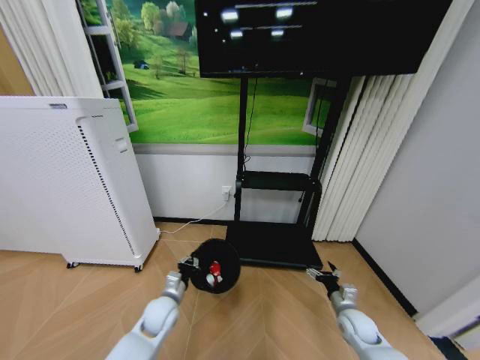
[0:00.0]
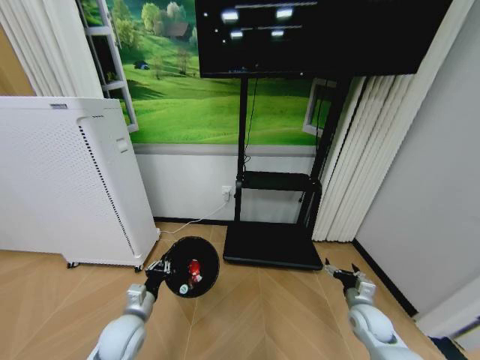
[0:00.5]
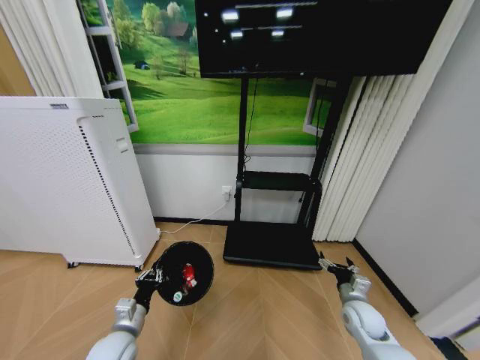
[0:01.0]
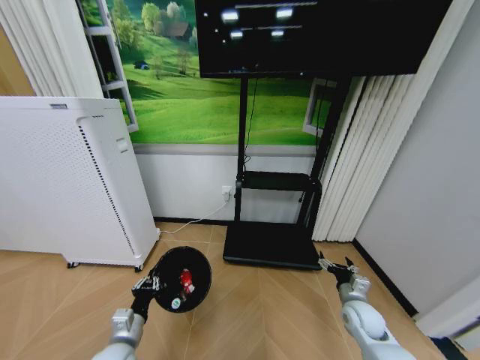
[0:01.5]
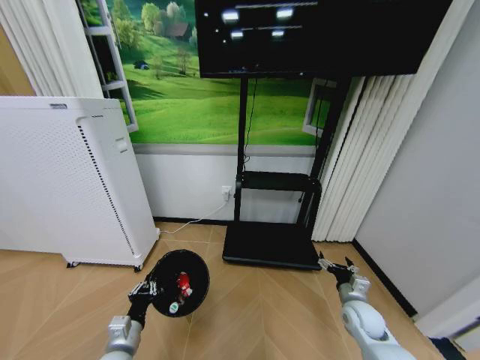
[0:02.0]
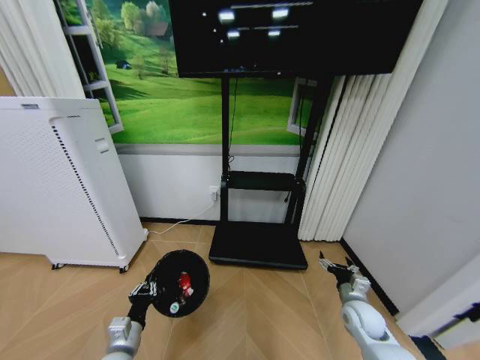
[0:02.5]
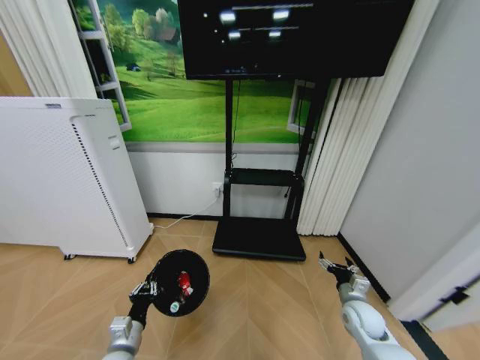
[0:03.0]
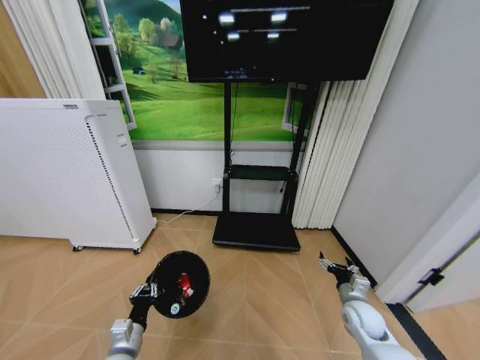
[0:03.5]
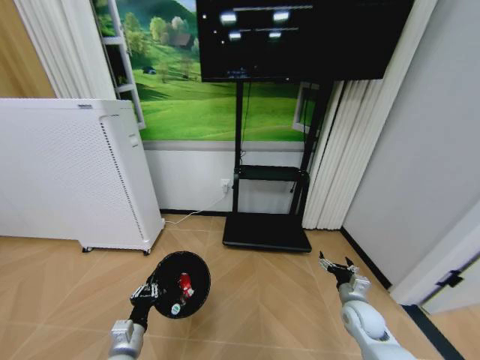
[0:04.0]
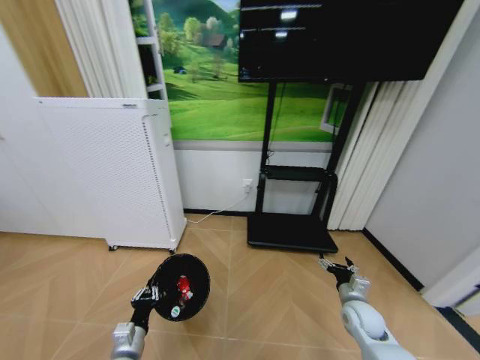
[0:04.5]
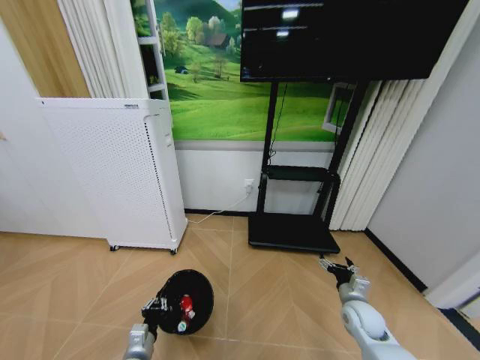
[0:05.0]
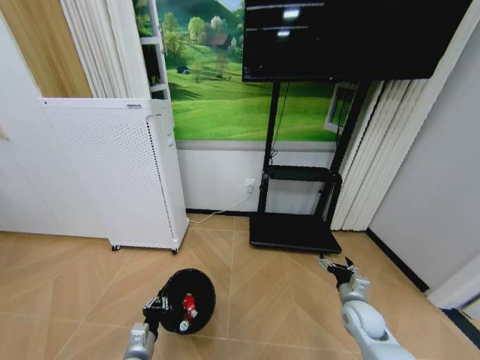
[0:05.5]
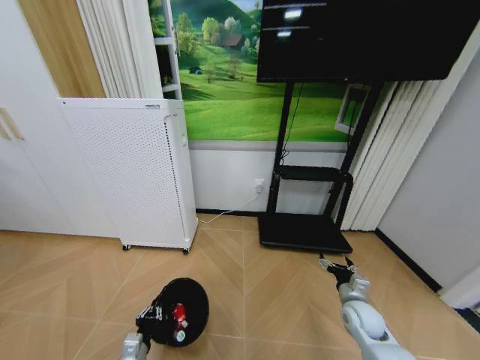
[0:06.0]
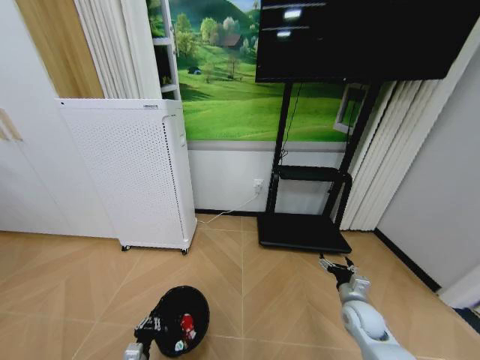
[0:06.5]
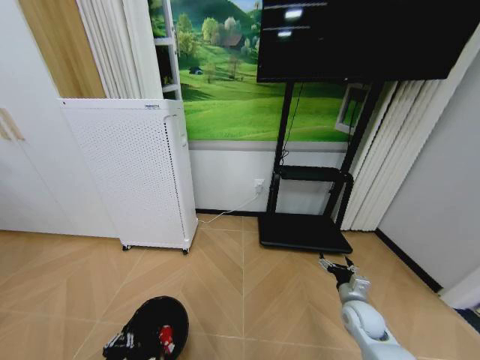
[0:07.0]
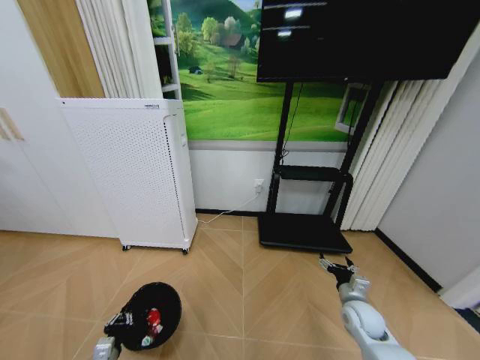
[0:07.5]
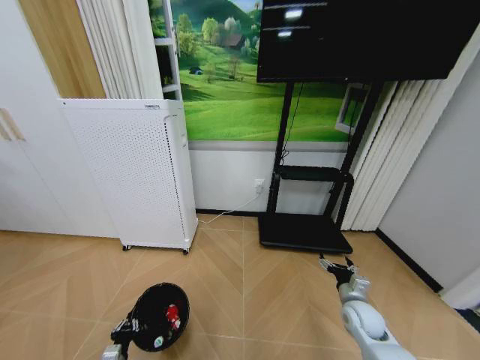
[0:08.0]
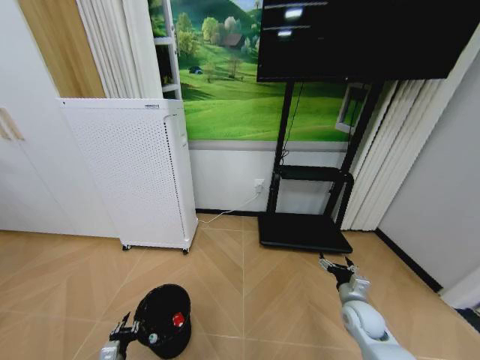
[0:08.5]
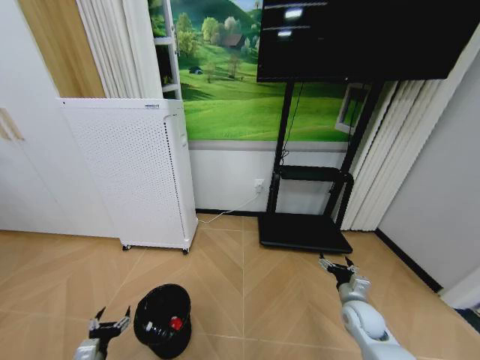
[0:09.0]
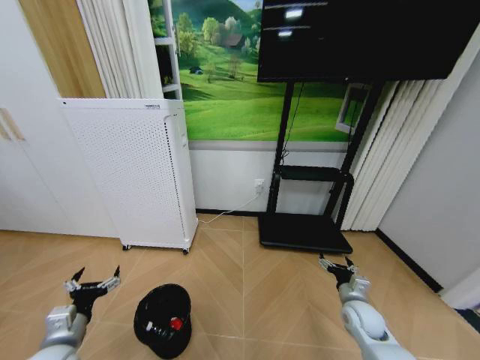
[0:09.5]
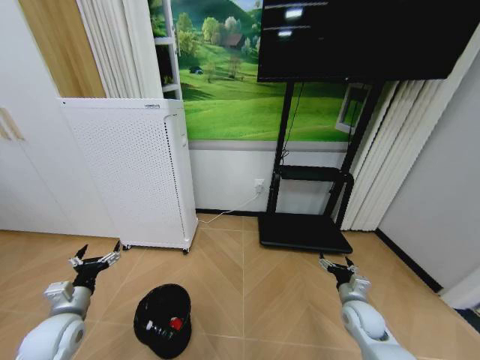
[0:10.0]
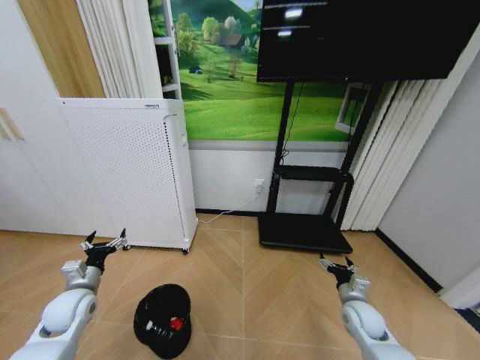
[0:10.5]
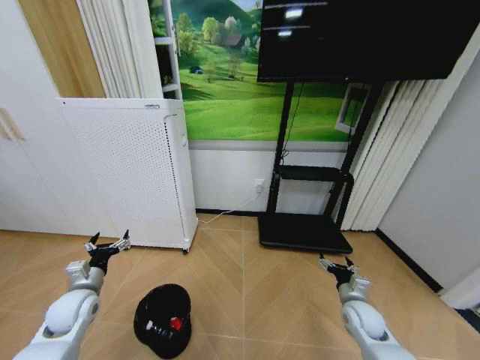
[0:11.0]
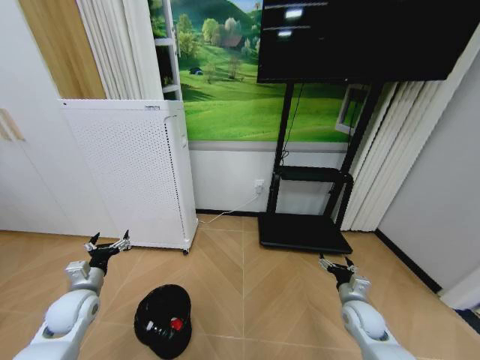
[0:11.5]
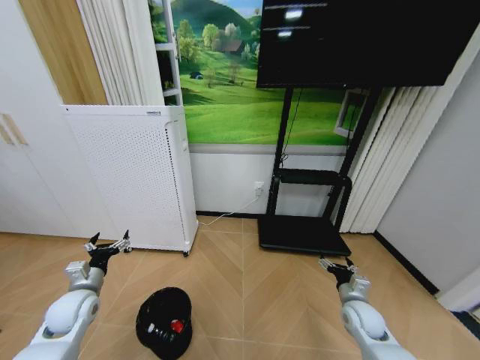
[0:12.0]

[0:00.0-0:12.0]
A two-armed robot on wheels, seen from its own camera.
Task of the whole recording: Pick up the trash bin and place the garbage on the floor into it.
0:00.0 to 0:02.0: The right gripper goes approximately 5 cm upward, while the left gripper is displaced backward and to the left by about 15 cm.
0:04.0 to 0:06.0: The left gripper heads downward, covering approximately 5 cm.
0:06.0 to 0:08.0: The left gripper moves to the left and downward, approximately 10 cm.
0:08.0 to 0:10.0: The left gripper shifts about 20 cm upward and forward, and opens up.
0:10.0 to 0:12.0: The left gripper is displaced forward by about 5 cm.

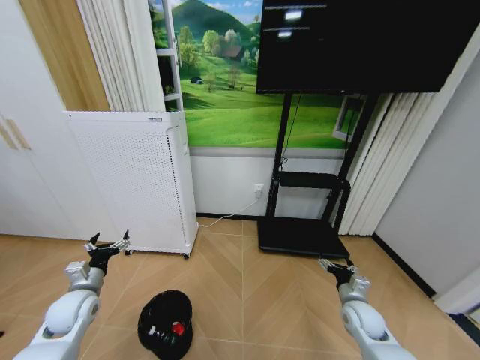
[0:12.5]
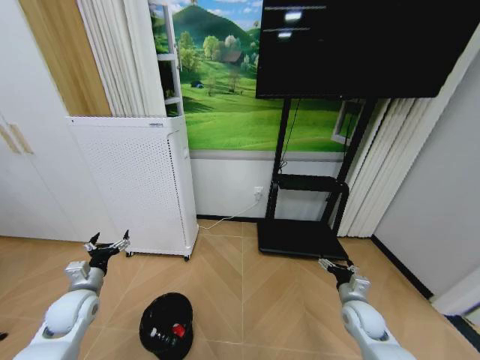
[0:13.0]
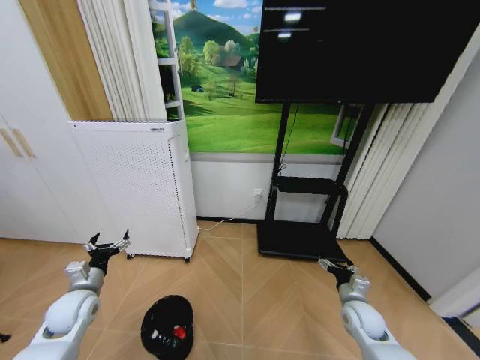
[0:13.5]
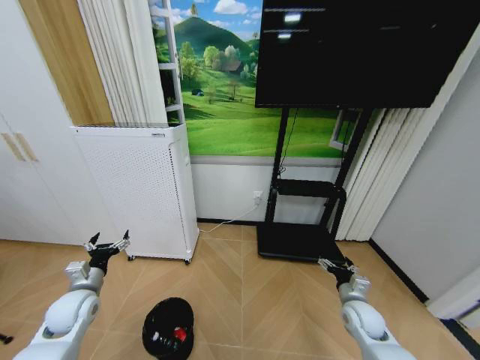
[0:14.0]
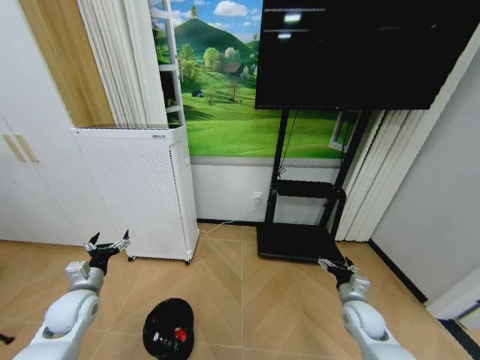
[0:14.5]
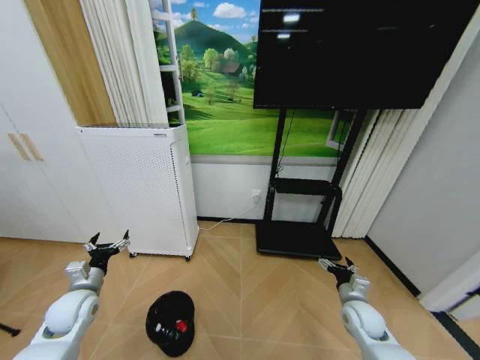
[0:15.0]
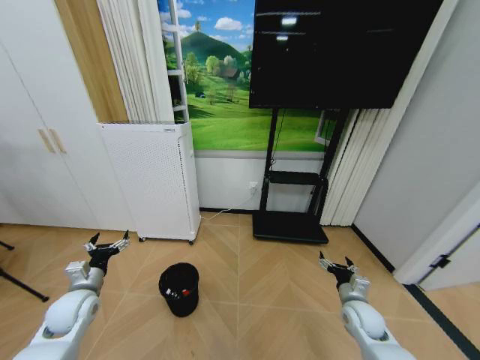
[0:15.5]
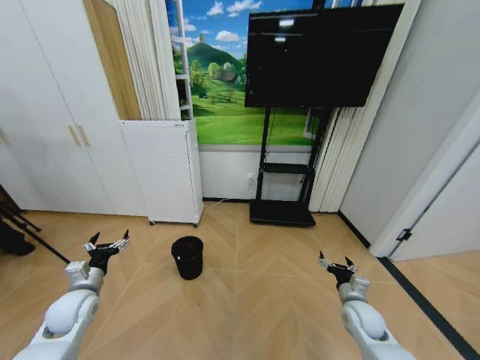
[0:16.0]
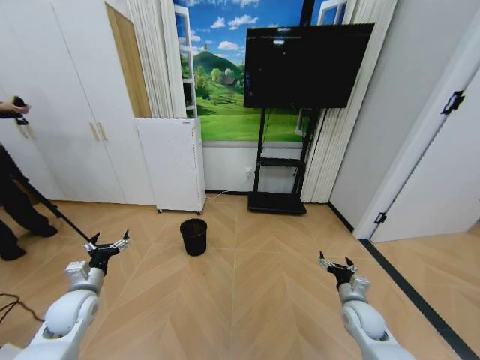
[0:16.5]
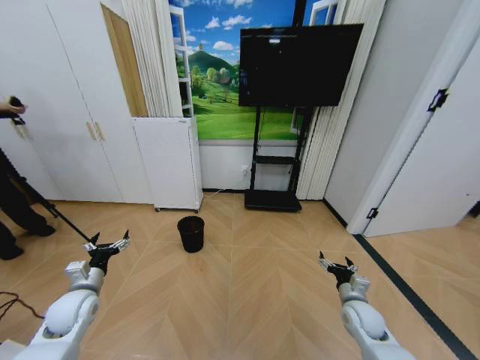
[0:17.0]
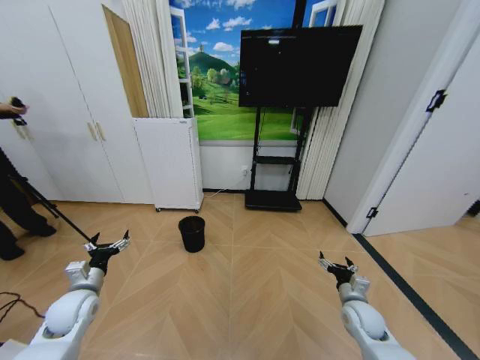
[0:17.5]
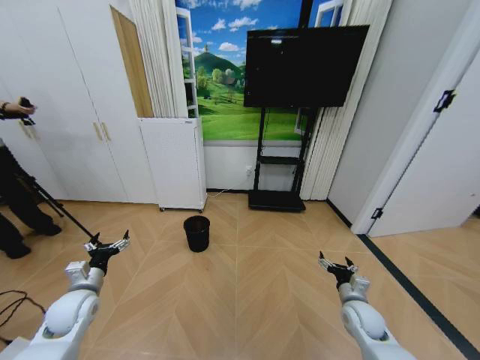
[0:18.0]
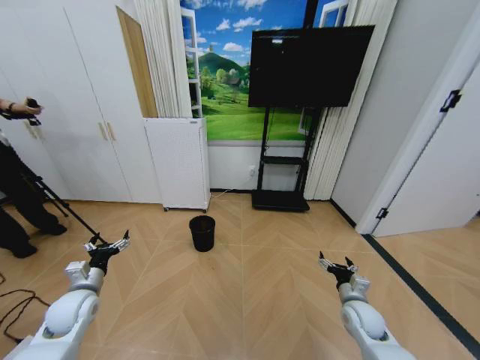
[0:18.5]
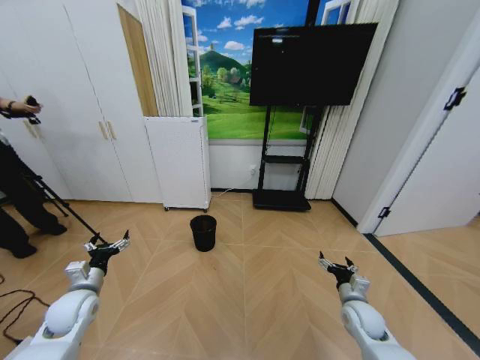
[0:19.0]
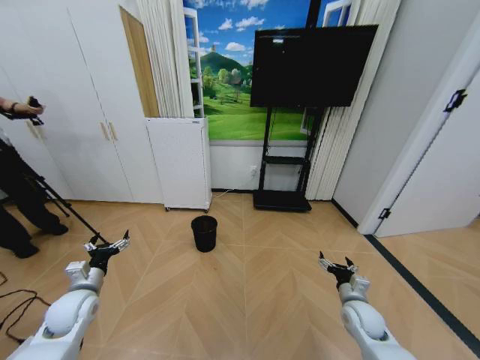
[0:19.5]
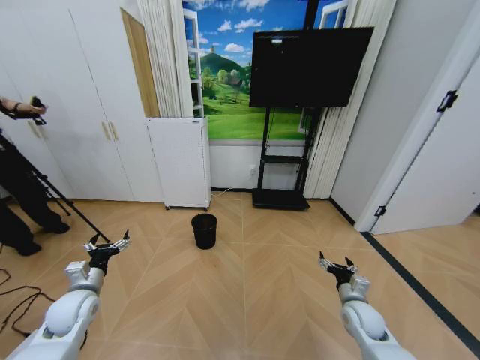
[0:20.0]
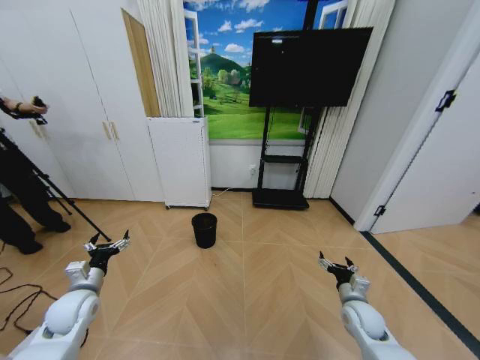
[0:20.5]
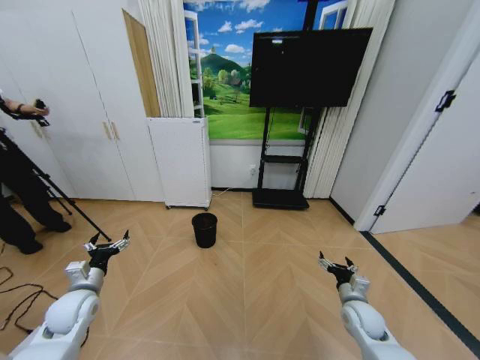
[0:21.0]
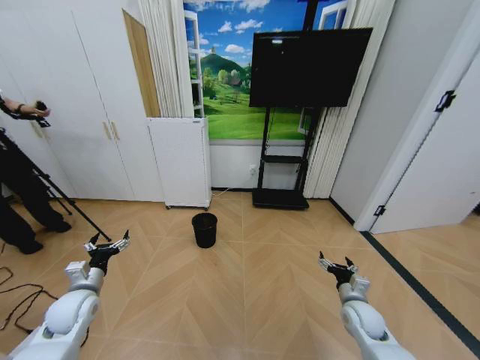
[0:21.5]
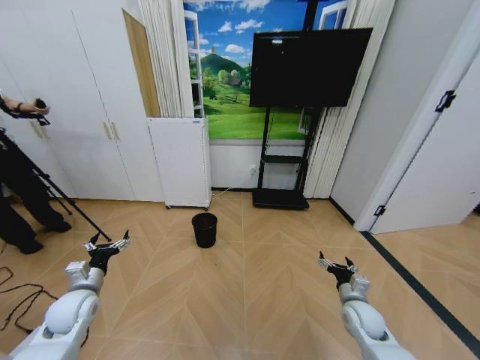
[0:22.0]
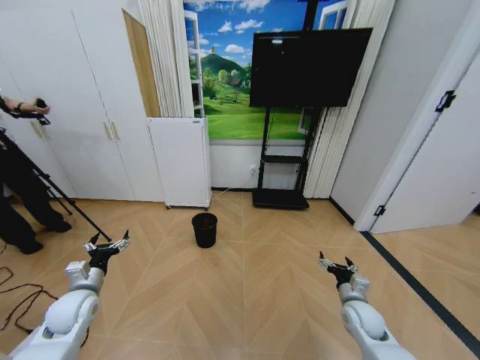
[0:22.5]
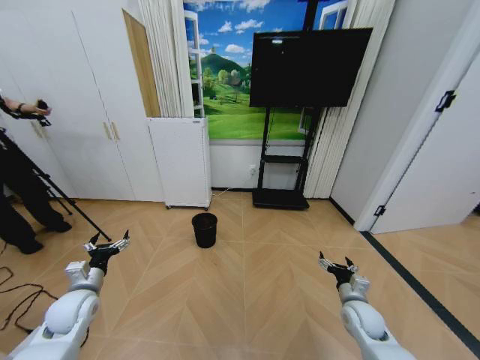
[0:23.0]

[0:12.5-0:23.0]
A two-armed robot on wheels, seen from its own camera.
Task of the whole recording: Pick up the trash bin and place the garbage on the floor into it.
0:12.5 to 0:14.5: The two grippers keep their place.
0:16.5 to 0:23.0: Both grippers stay put.

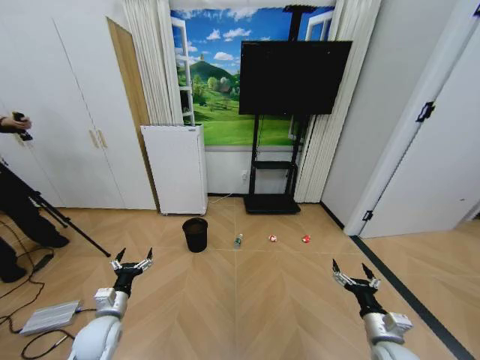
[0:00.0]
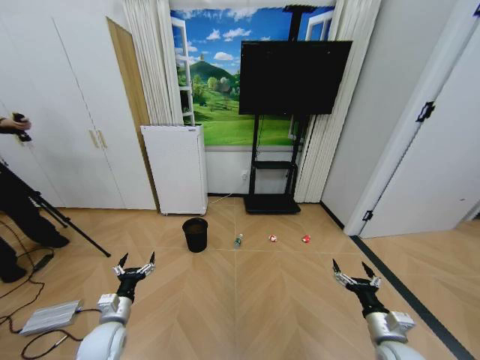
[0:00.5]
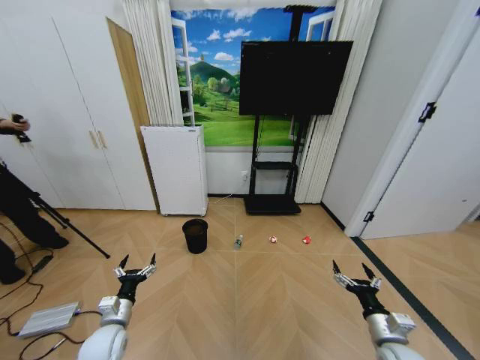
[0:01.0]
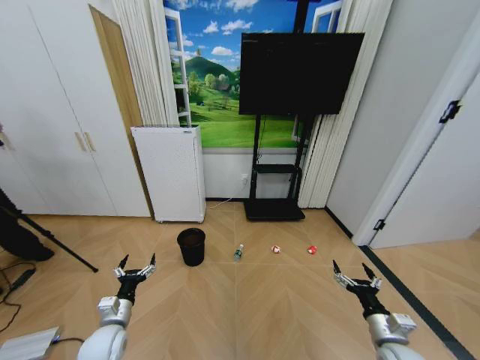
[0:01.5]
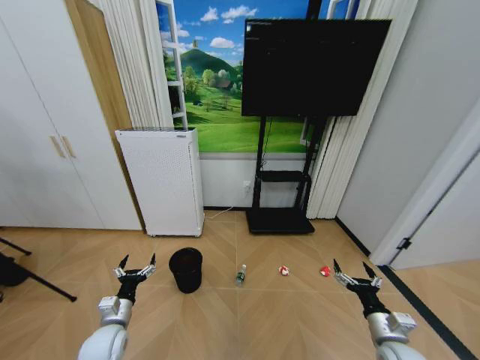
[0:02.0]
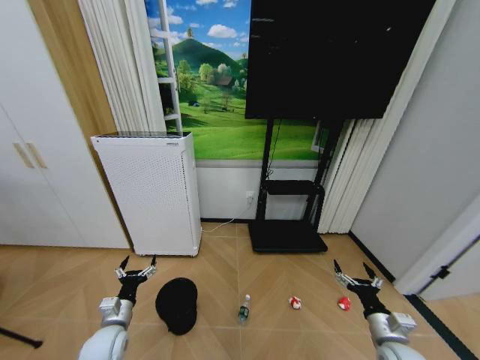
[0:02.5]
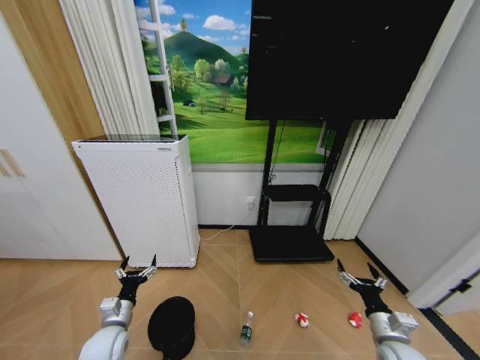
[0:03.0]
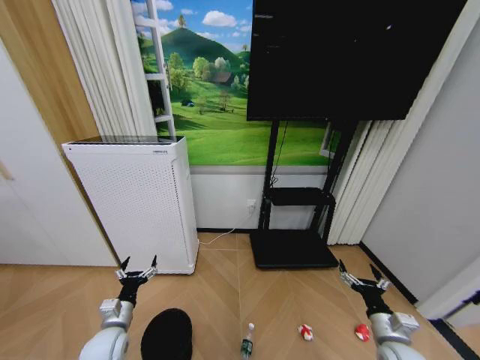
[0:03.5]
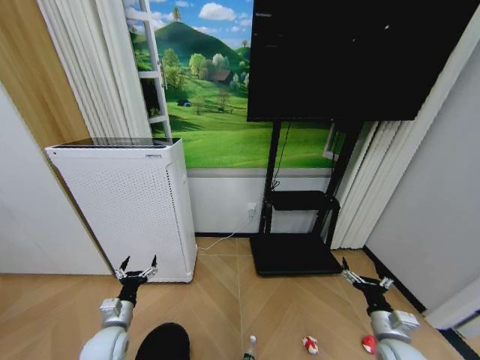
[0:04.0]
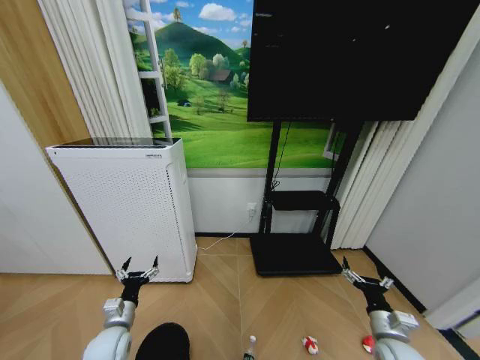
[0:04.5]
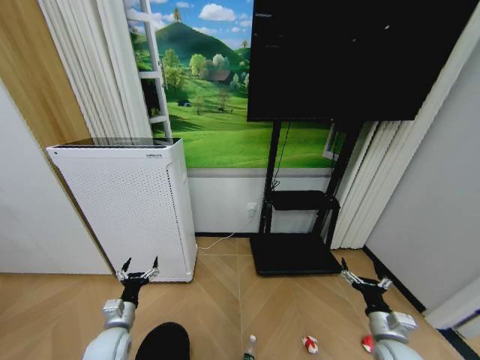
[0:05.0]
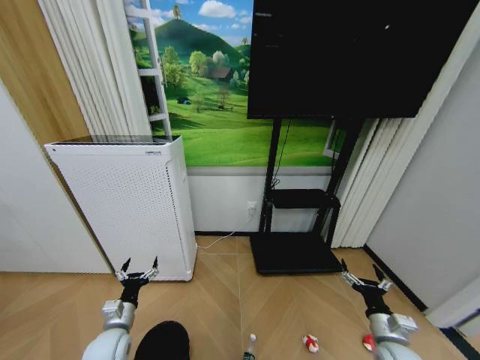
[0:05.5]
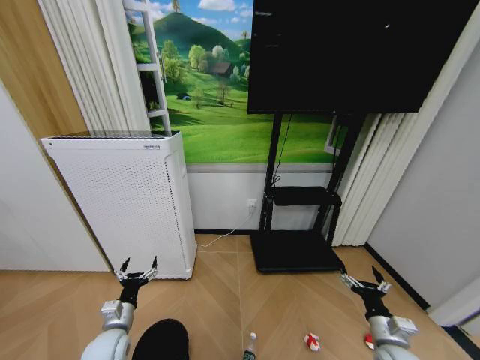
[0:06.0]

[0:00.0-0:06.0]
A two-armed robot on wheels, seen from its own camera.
Task of the whole recording: Pick up the trash bin and place the garbage on the floor into it.
0:04.0 to 0:06.0: Neither gripper changes place.
